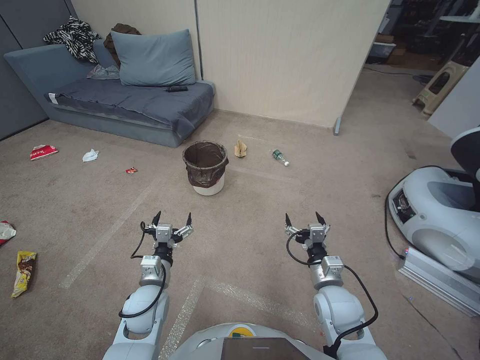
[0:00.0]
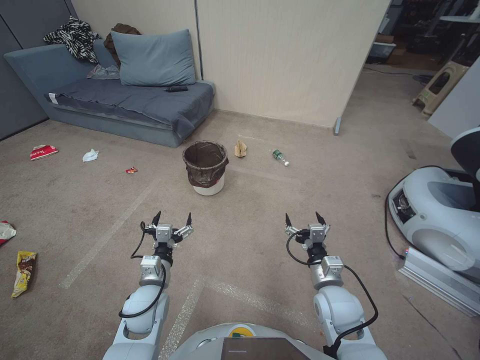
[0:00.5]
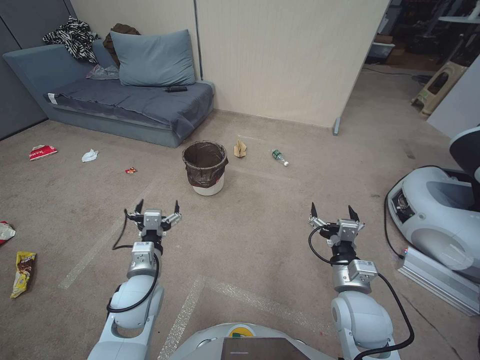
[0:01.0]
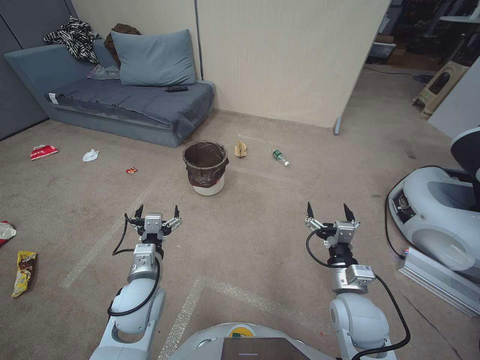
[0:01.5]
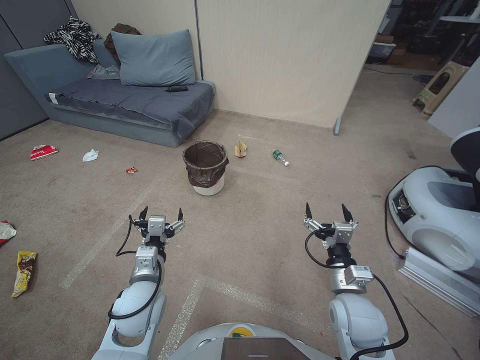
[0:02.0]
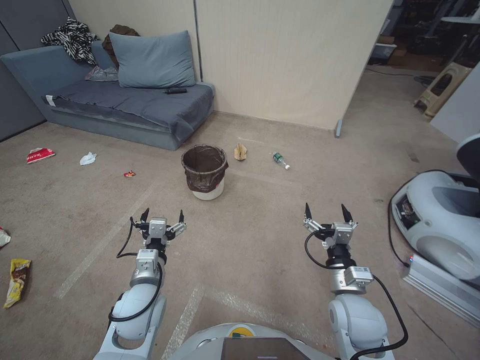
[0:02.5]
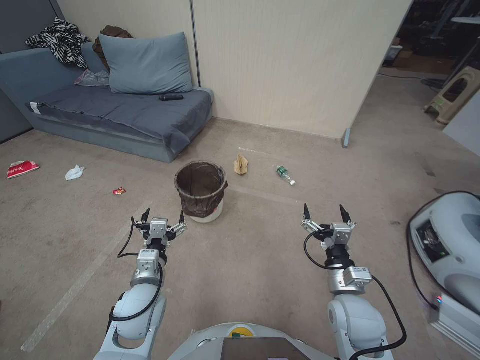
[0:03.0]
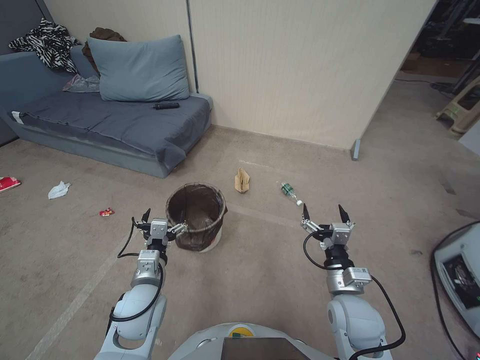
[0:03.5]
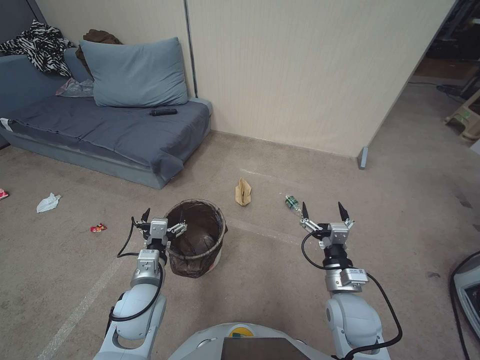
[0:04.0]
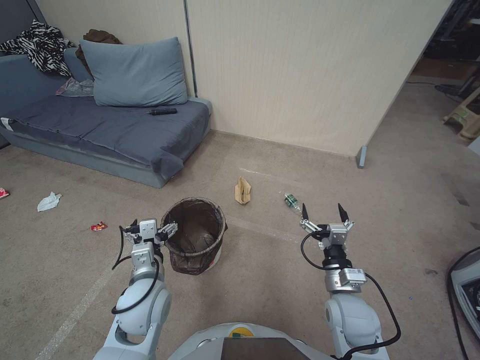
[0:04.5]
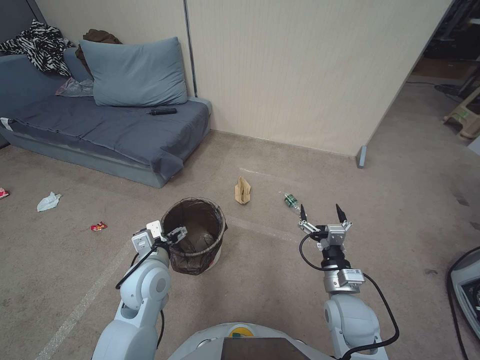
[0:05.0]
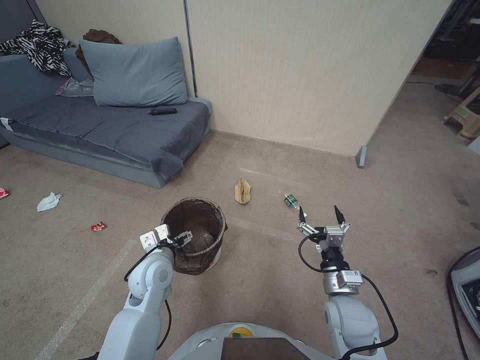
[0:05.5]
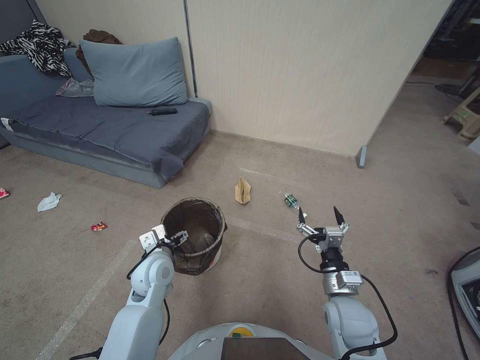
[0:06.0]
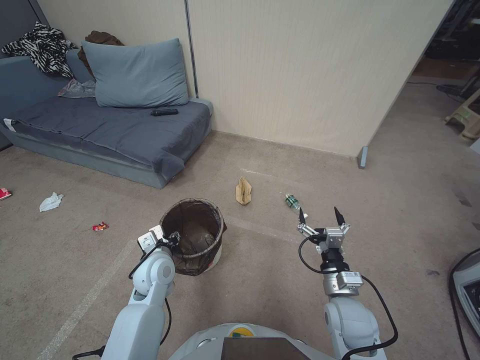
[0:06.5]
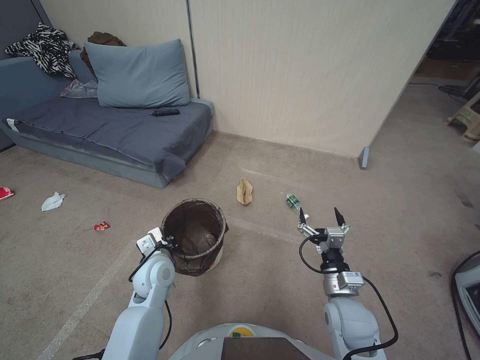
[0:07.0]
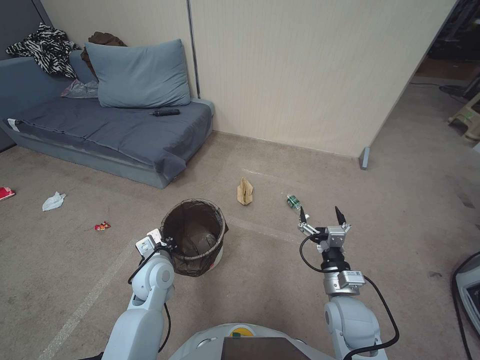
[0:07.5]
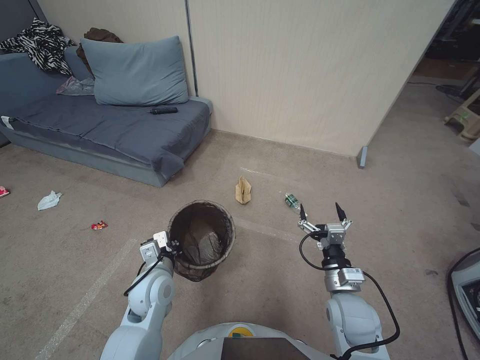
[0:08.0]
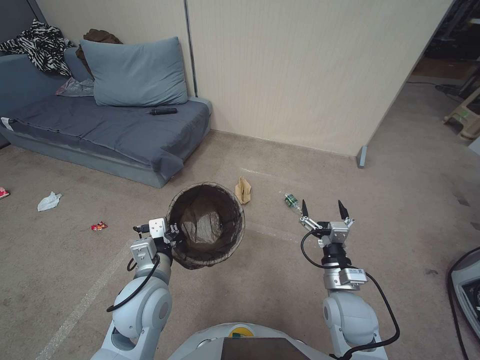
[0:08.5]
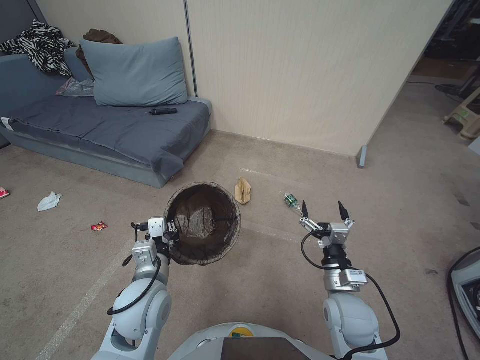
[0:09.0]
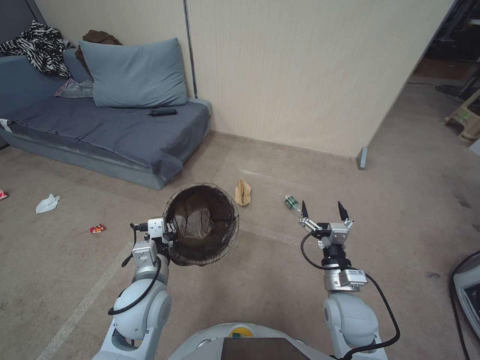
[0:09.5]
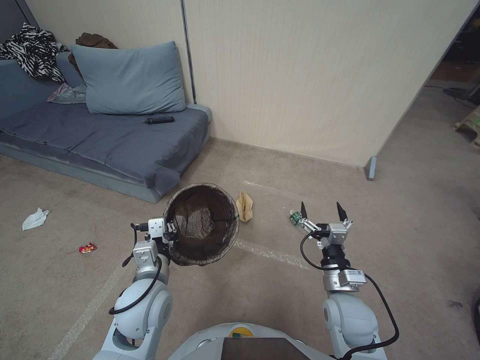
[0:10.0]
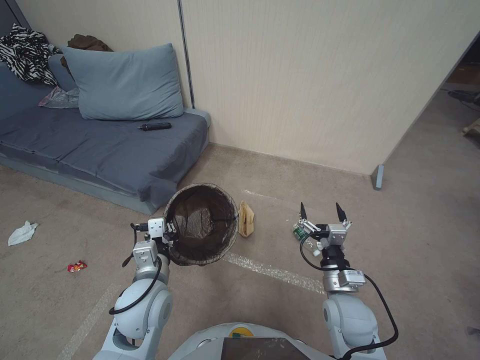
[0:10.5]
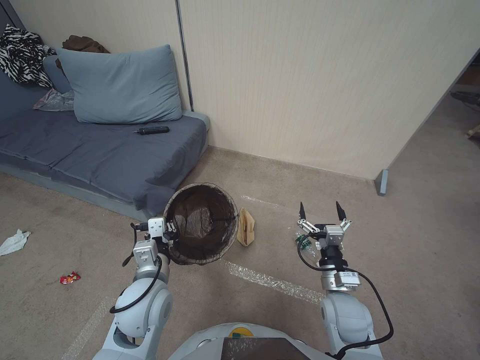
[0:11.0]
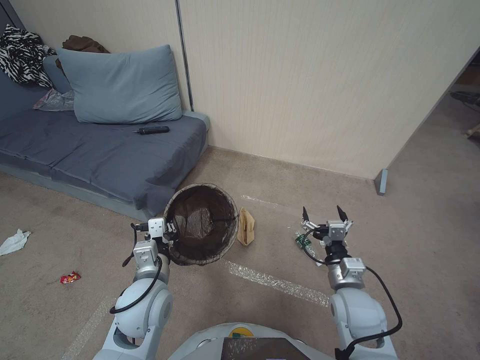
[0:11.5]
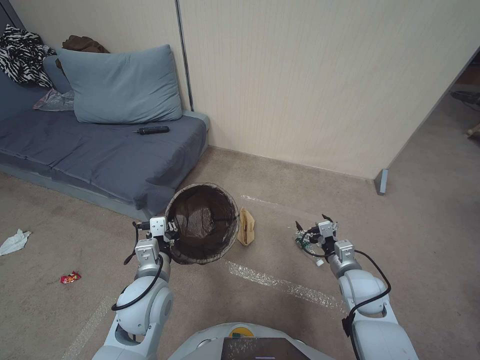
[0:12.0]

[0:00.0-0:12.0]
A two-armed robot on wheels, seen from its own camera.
Task of the whole recording: Pick up the trash bin, then pick up the garbage from the floor and place it into the trash bin.
0:04.0 to 0:06.0: The left gripper moves forward, some 5 cm.
0:06.0 to 0:08.0: The left gripper closes its fingers.
0:08.0 to 0:10.0: The left gripper heads upward, covering some 5 cm.
0:10.0 to 0:12.0: The right gripper shifts roughly 10 cm to the right and forward.

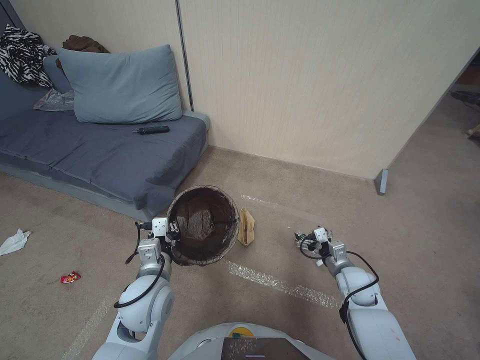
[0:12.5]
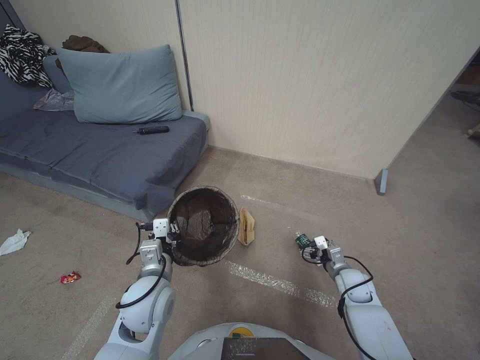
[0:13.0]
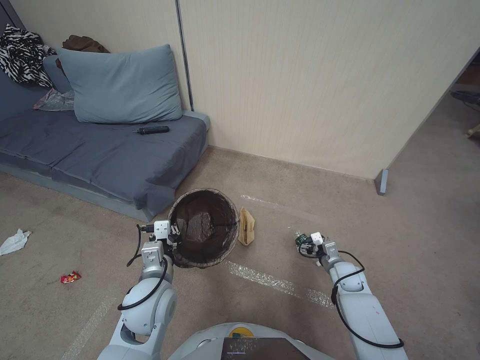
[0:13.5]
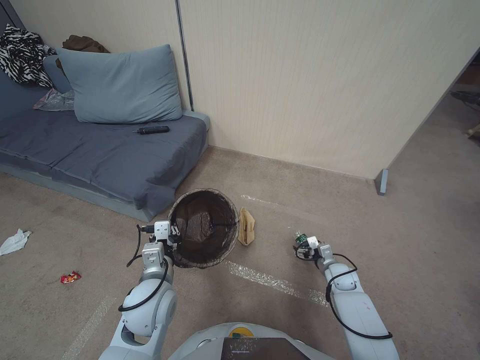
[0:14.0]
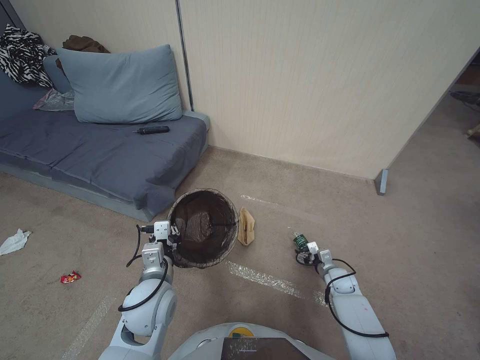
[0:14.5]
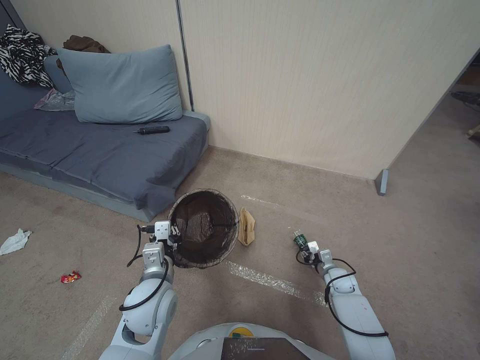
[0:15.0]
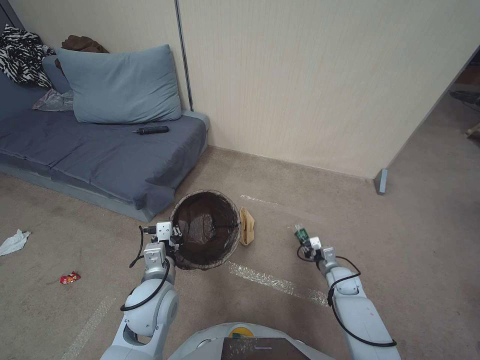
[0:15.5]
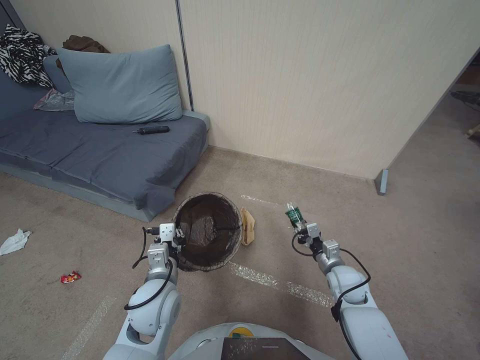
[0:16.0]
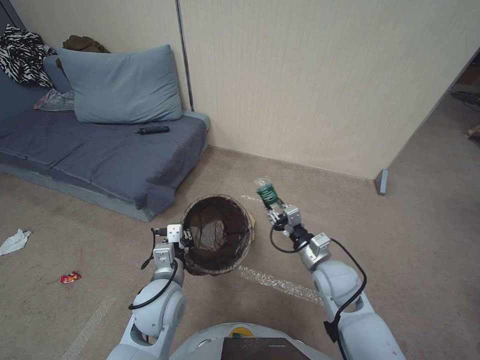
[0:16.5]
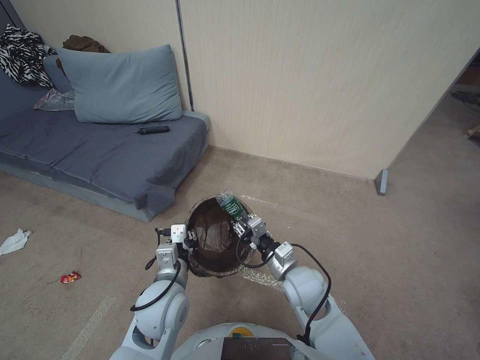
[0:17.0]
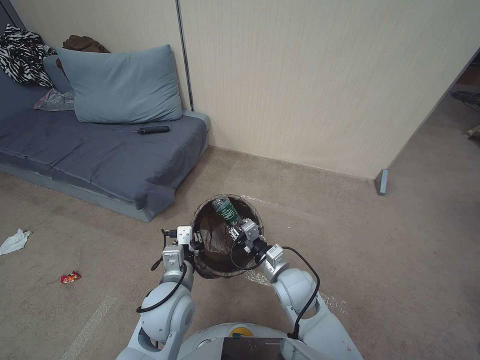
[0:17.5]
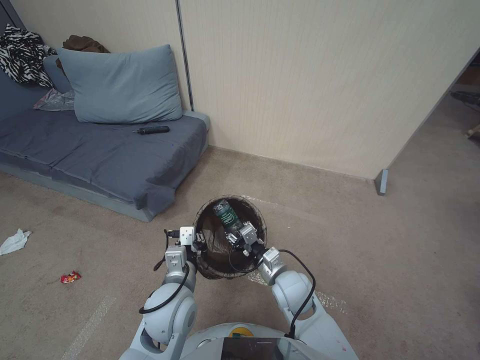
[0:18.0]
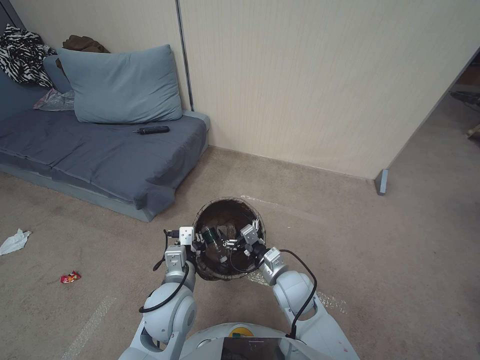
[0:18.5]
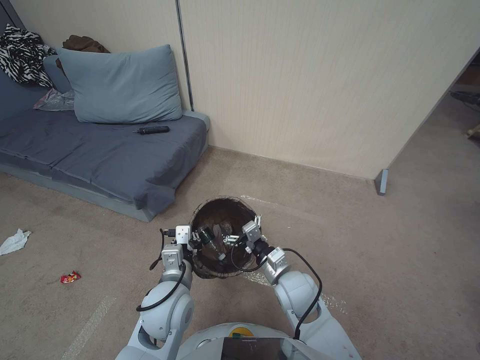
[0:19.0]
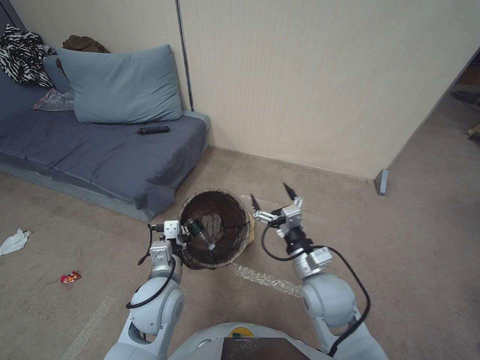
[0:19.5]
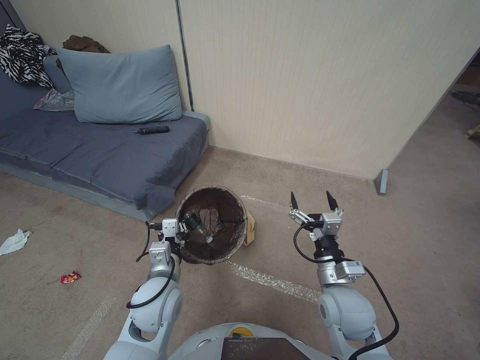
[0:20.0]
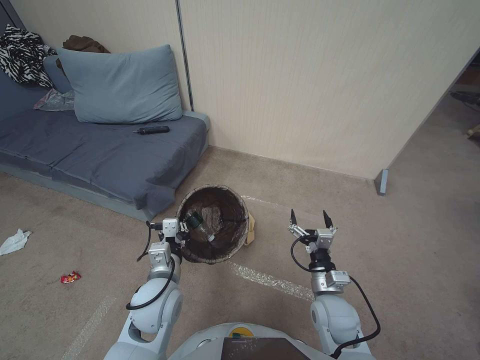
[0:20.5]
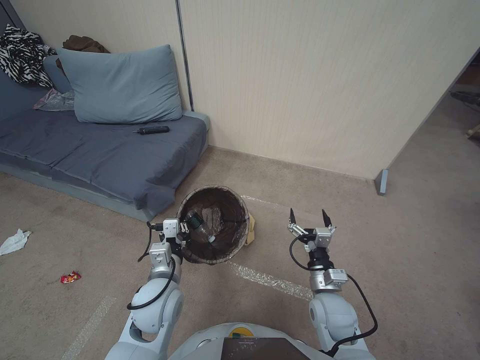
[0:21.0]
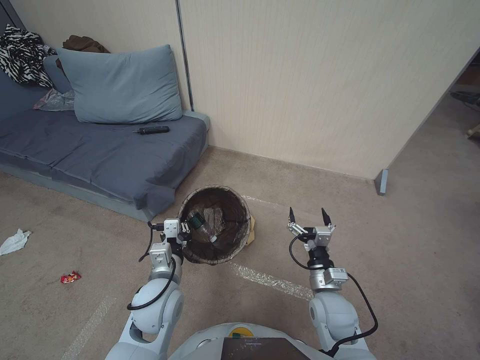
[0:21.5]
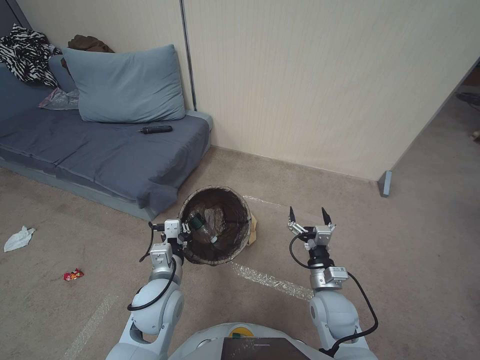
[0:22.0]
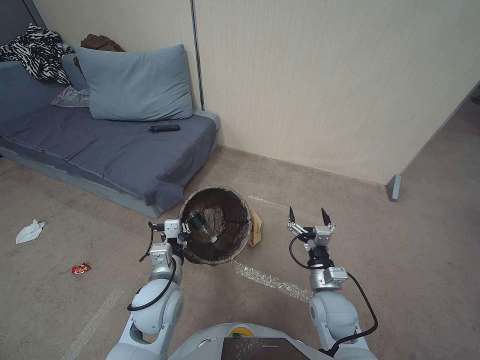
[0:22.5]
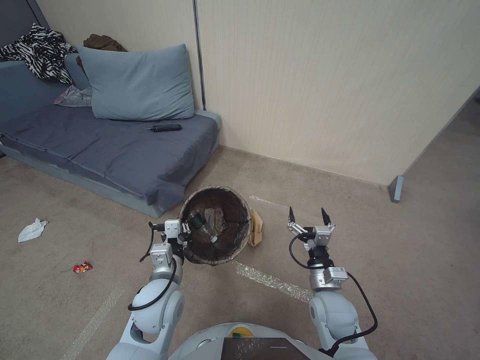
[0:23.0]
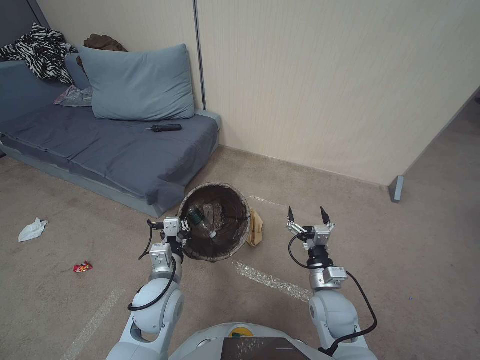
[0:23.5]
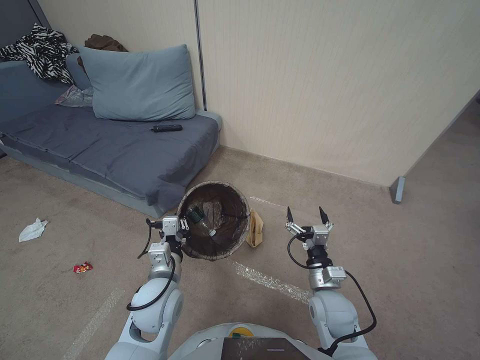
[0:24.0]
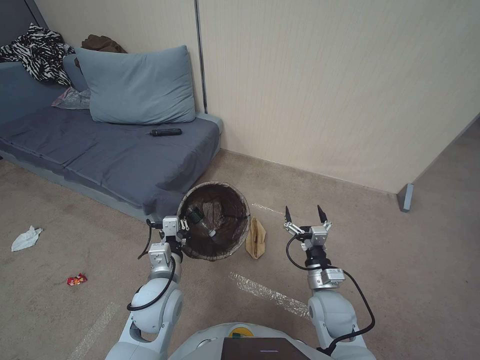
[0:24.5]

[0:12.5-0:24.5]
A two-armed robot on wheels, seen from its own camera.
Task of the whole recording: Pick up the trash bin, then pick up the garbage from the floor and place it into the trash bin.
0:12.5 to 0:14.5: The right gripper goes approximately 10 cm downward.
0:14.5 to 0:16.5: The right gripper shifts some 25 cm upward and to the left, and closes up.
0:16.5 to 0:18.5: The right gripper travels to the left by approximately 10 cm, and opens its fingers.
0:18.5 to 0:20.5: The right gripper is displaced to the right and backward by roughly 10 cm.
0:20.5 to 0:24.5: Neither gripper changes place.

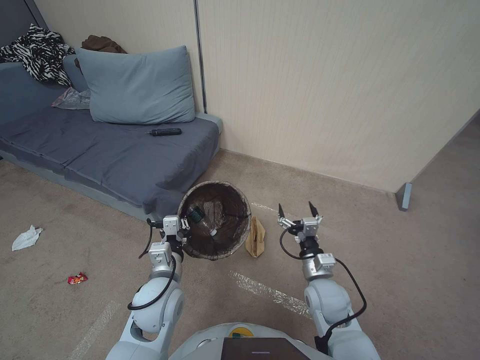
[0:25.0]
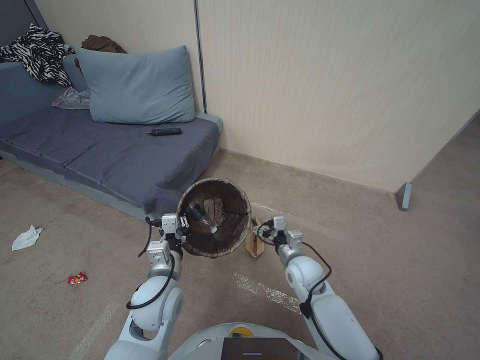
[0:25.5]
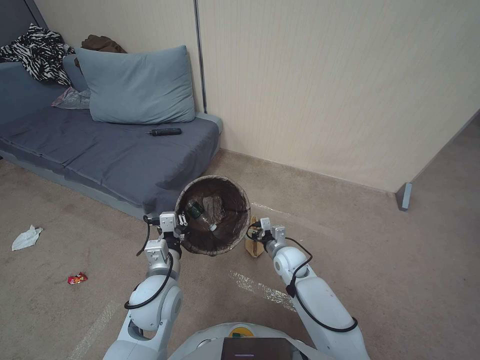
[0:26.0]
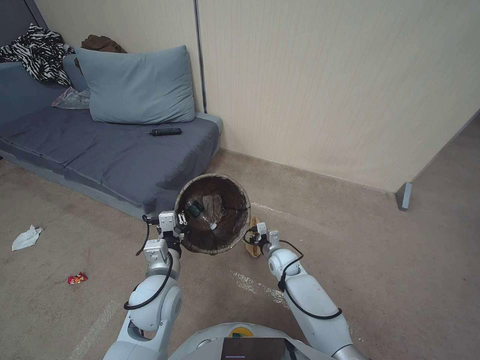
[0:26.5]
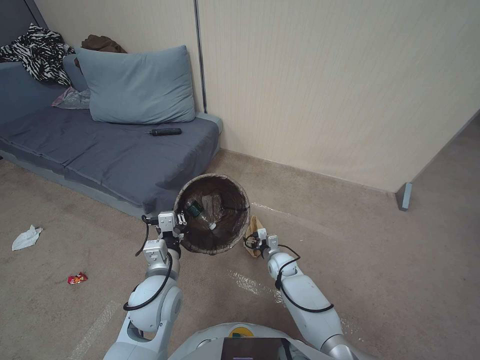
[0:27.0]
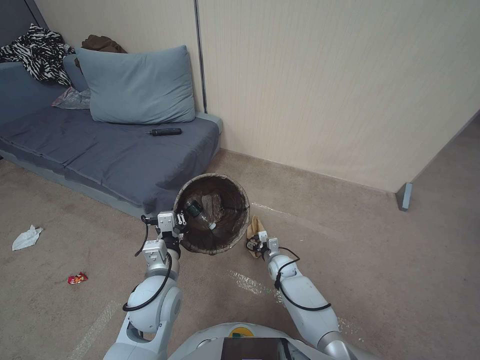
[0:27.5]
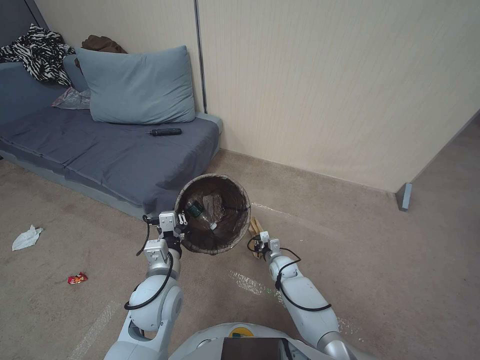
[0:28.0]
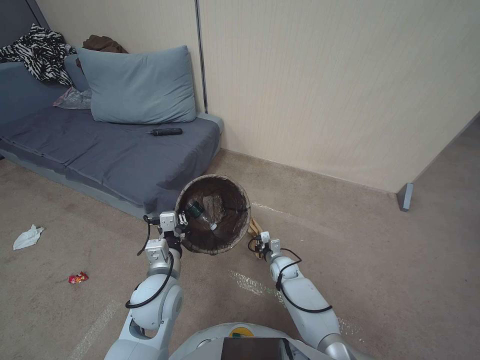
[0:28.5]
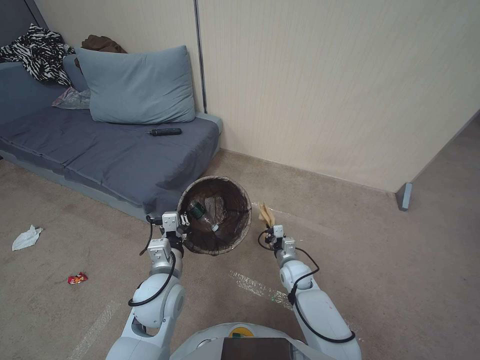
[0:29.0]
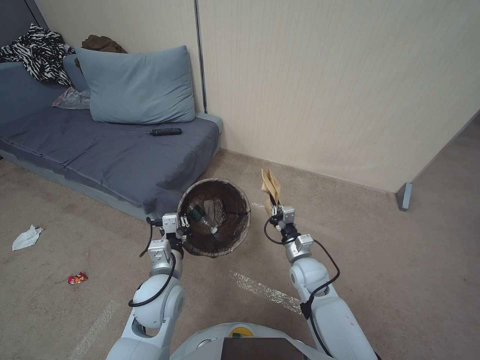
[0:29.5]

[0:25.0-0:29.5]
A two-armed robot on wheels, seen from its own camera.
Task of the whole recording: Pick up the trash bin, then pick up the garbage from the floor and place it into the trash bin.
0:25.0 to 0:27.0: The right gripper shifts some 20 cm forward, downward and to the left.
0:27.0 to 0:29.5: The right gripper goes about 10 cm upward and backward, and closes.
